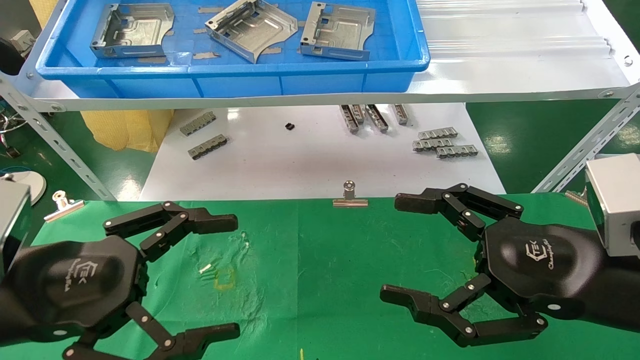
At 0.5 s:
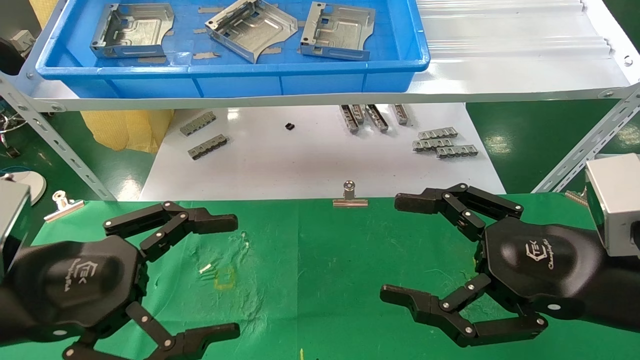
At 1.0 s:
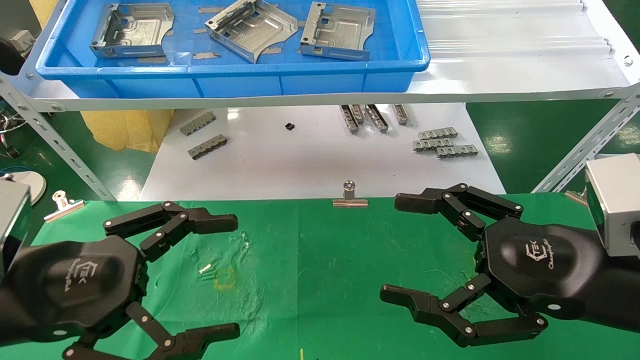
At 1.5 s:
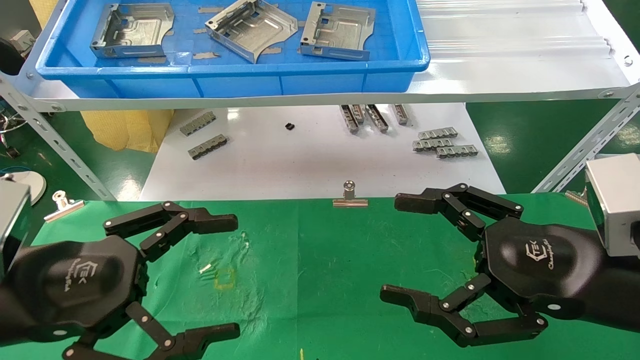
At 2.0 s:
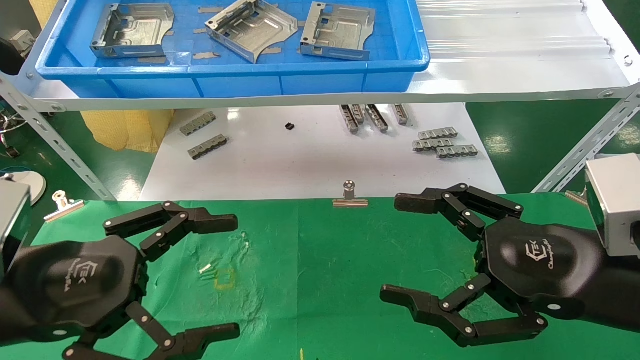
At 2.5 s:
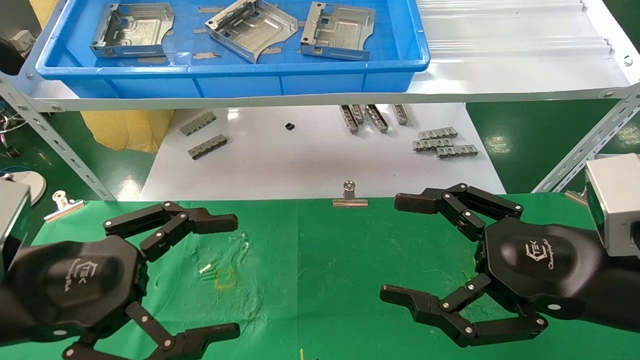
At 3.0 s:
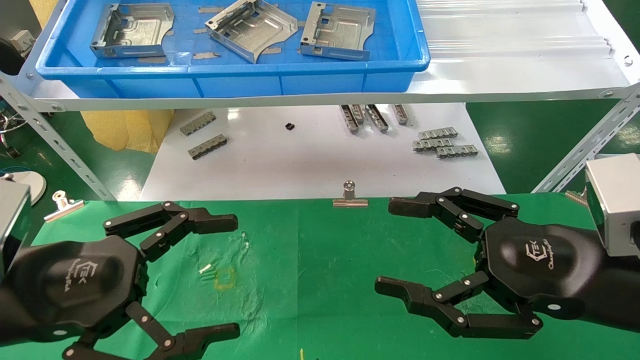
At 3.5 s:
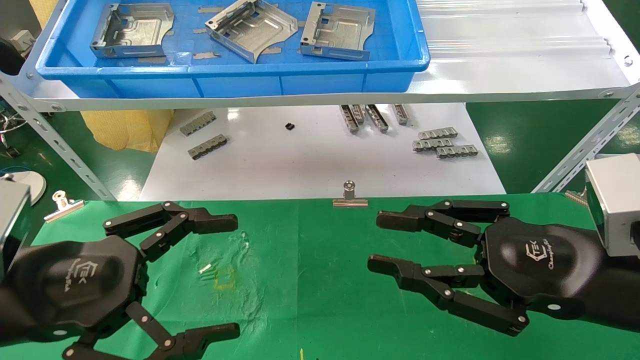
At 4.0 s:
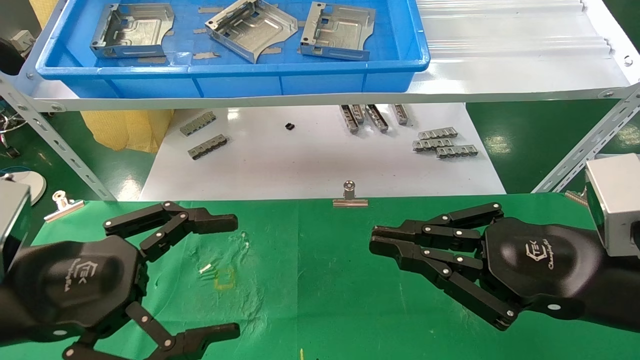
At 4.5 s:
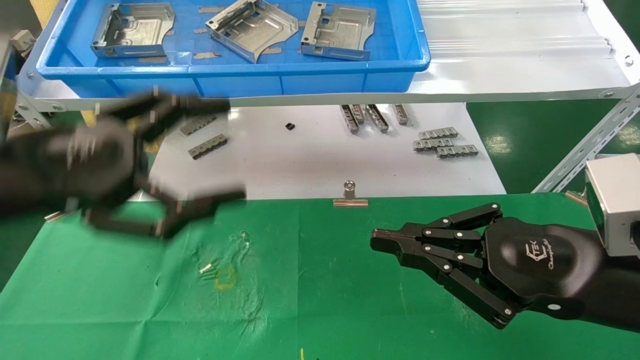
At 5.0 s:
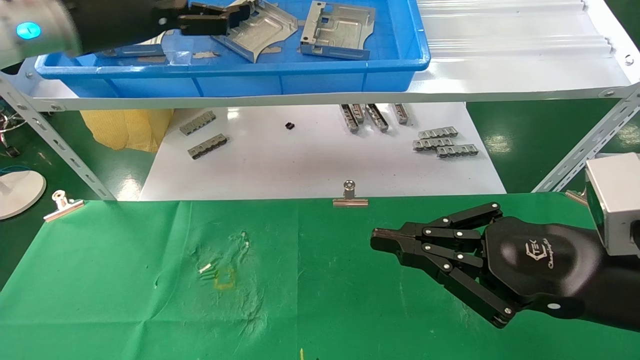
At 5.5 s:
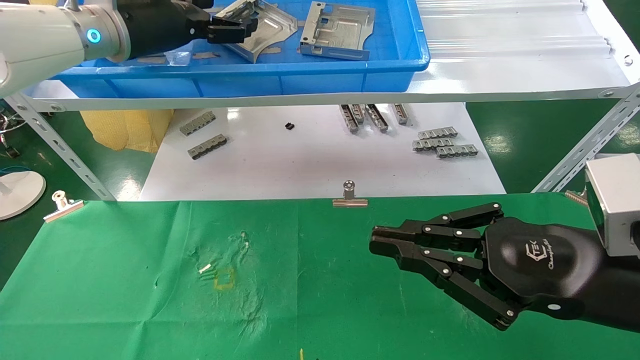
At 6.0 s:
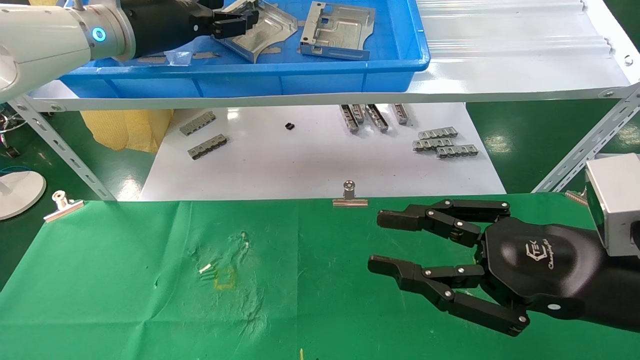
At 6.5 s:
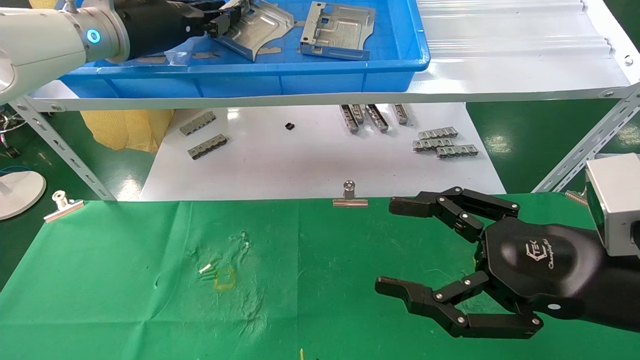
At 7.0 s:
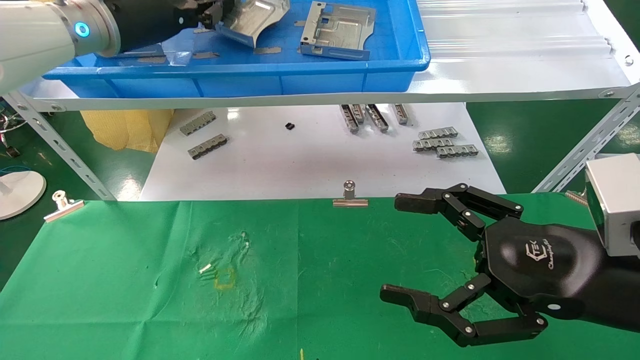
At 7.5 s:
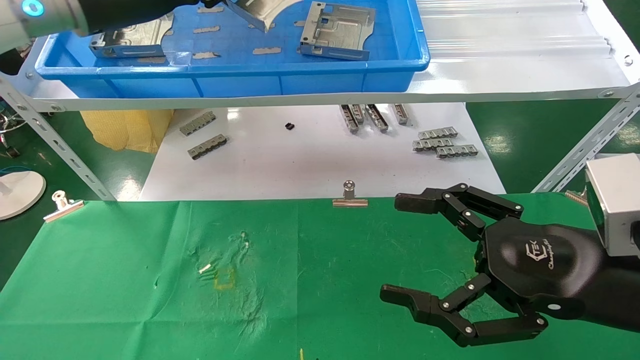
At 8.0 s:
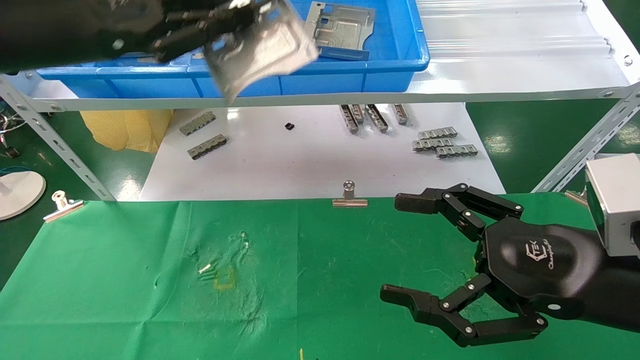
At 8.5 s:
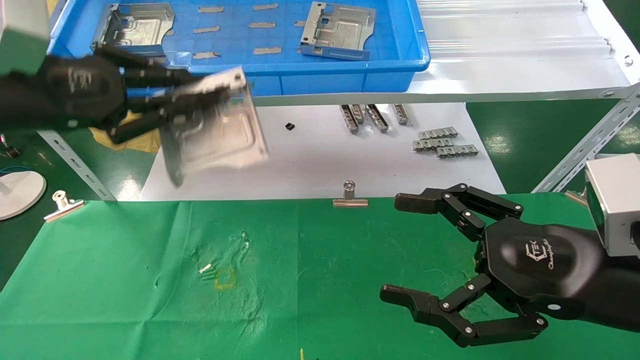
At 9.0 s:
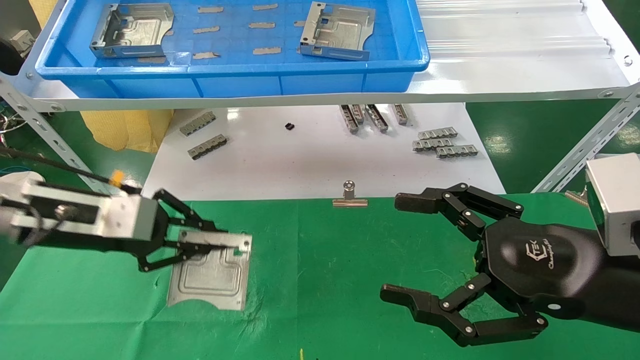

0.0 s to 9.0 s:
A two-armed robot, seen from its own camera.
Task of the whole recording: use the mechanical arm to pick up the parts and place them on the table.
Step, 4.5 to 6.5 s: Pick up the hard drive bracket from the feeding area.
0.0 to 2.0 s: The two grippers keep their place.
2.0 to 4.5 s: The left gripper heads upward and forward, covering roughly 10 cm. The right gripper closes its fingers.
4.5 to 7.0 s: The left gripper travels forward and upward by approximately 25 cm, and closes its fingers; the right gripper opens up.
7.0 to 9.0 s: The left gripper moves downward and backward, some 20 cm.

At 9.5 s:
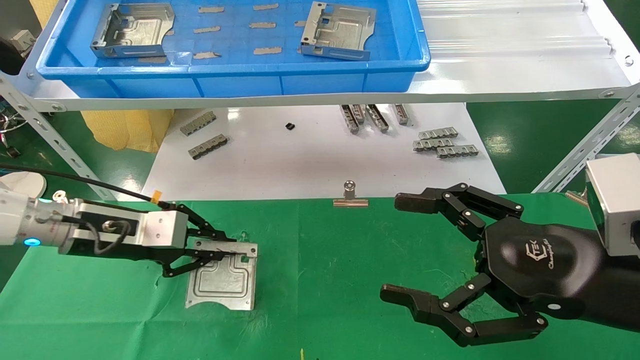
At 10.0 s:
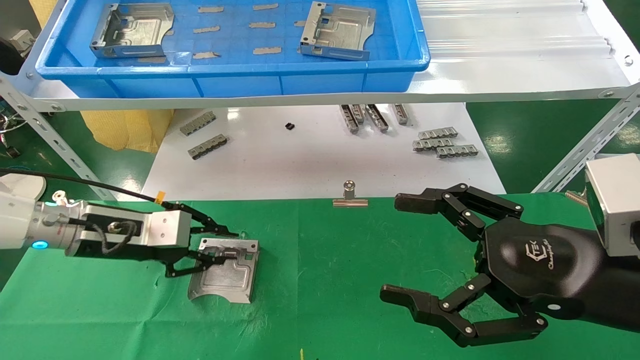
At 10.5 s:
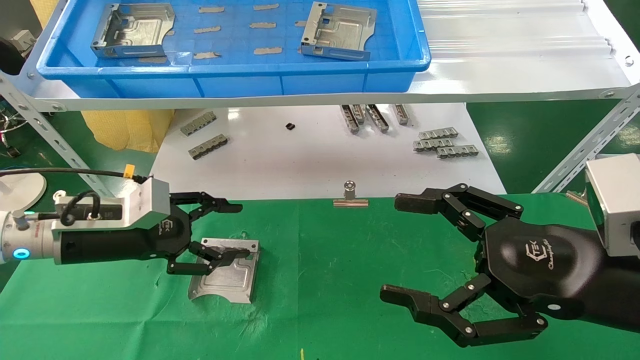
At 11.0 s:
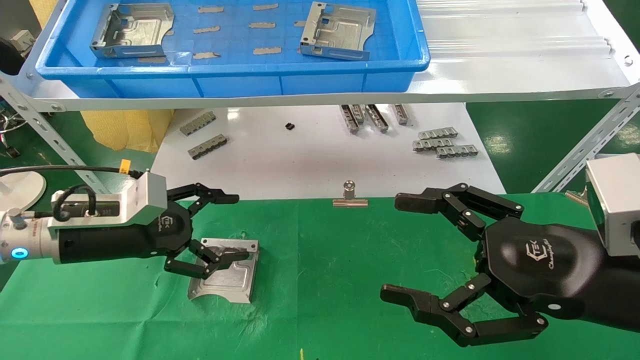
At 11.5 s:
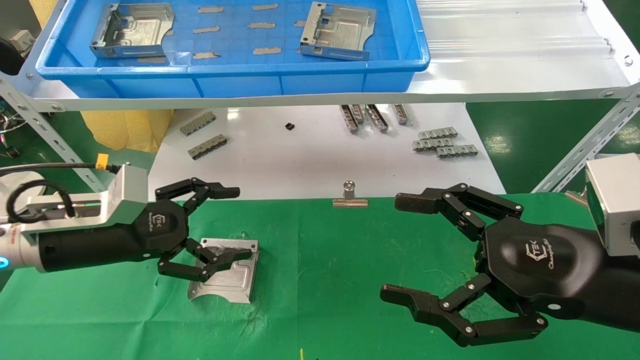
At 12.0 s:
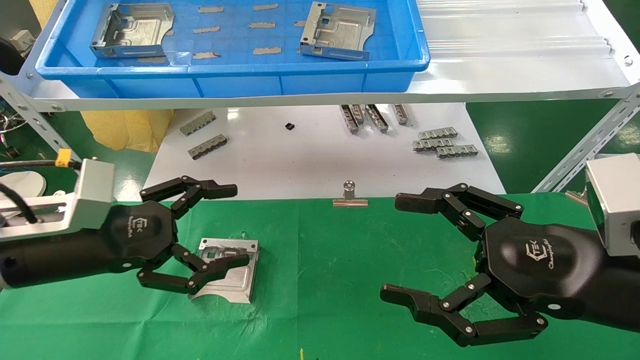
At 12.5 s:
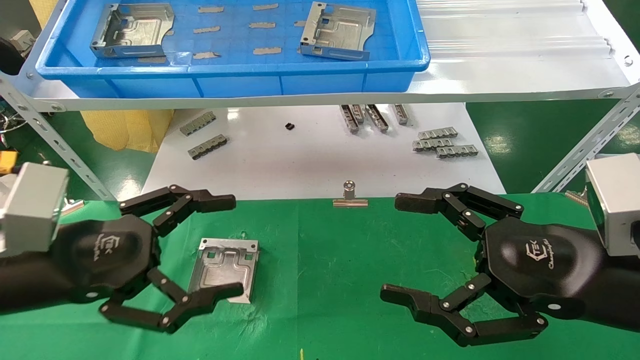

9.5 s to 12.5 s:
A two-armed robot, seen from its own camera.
Task of the whole recording: use the mechanical arm to pick up the parts and place them on the table.
9.5 to 11.0 s: The left gripper opens up.
11.0 to 12.5 s: The left gripper goes some 10 cm backward.

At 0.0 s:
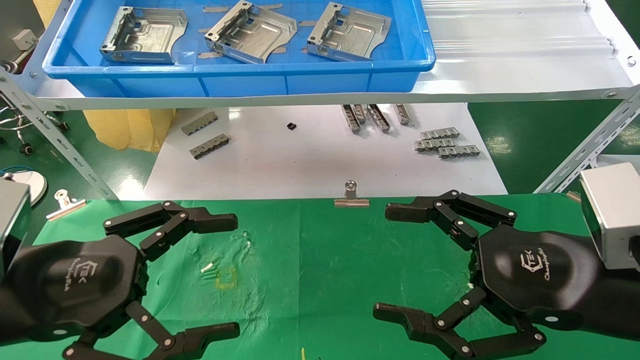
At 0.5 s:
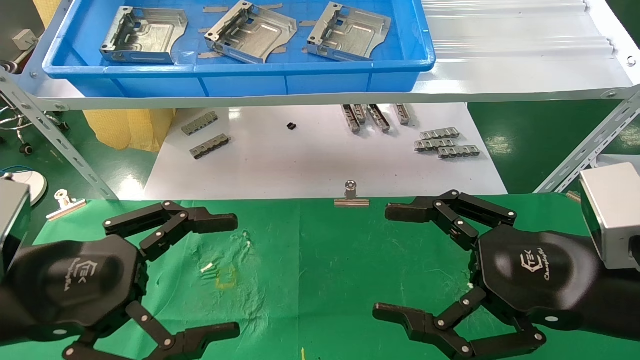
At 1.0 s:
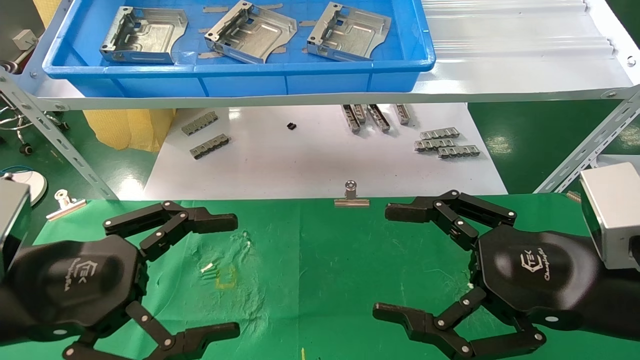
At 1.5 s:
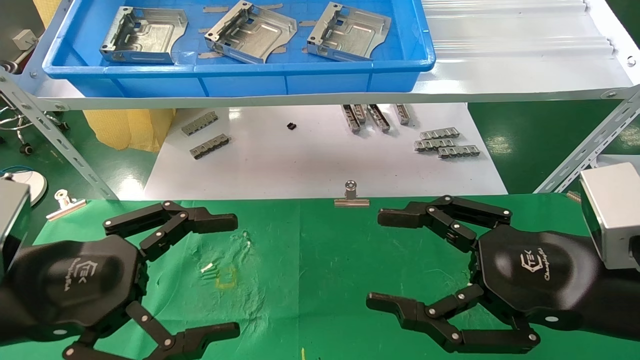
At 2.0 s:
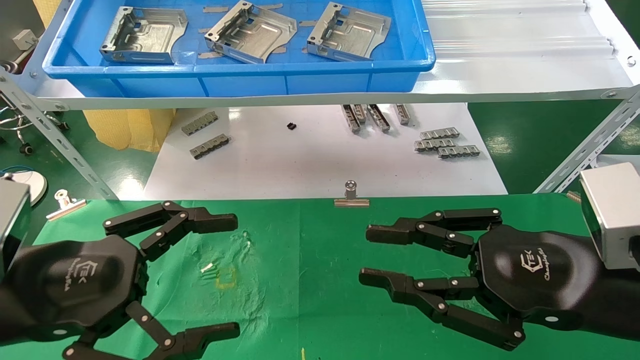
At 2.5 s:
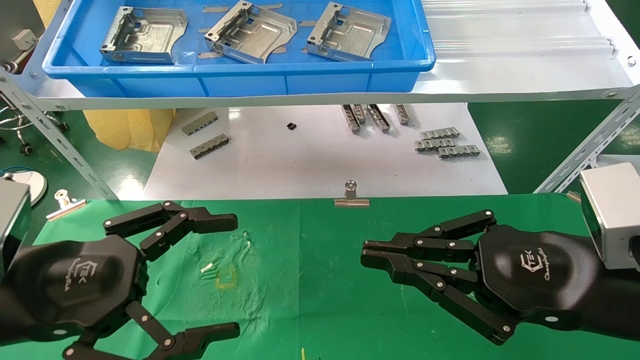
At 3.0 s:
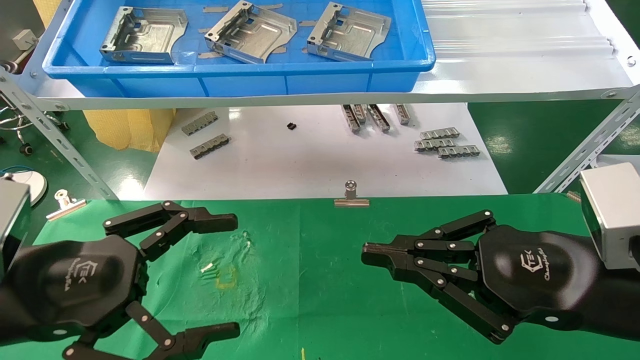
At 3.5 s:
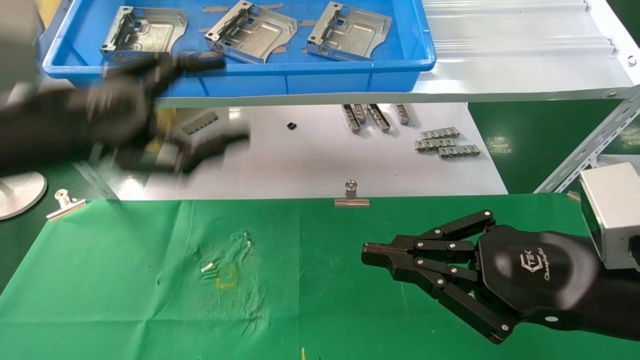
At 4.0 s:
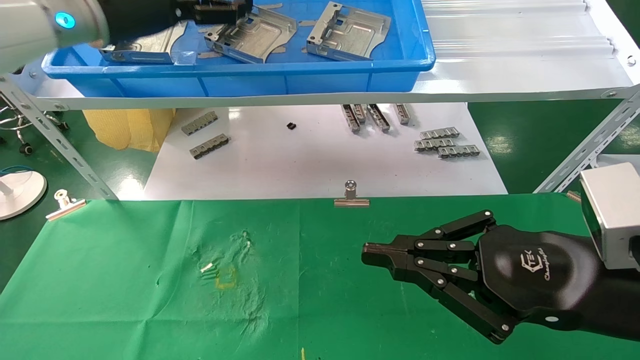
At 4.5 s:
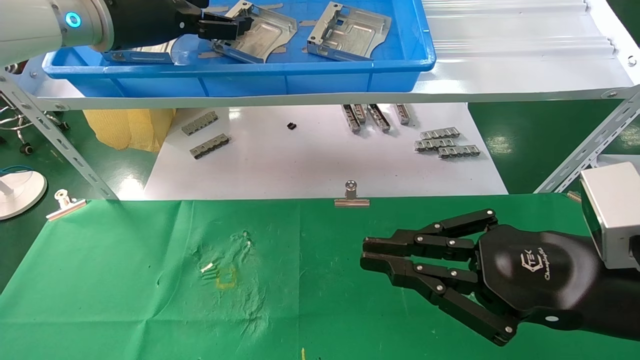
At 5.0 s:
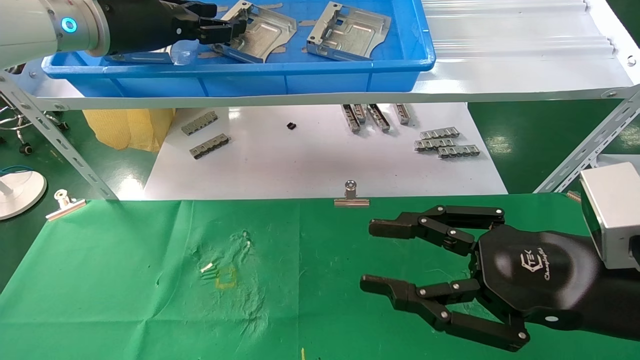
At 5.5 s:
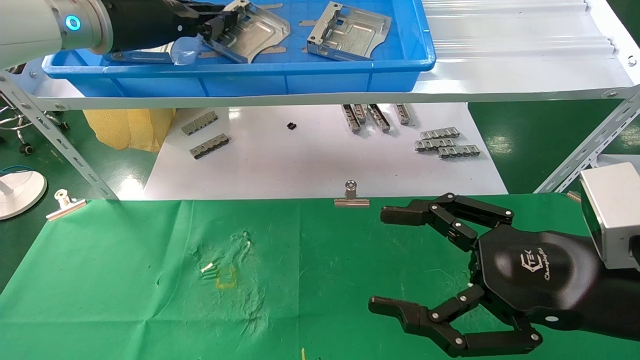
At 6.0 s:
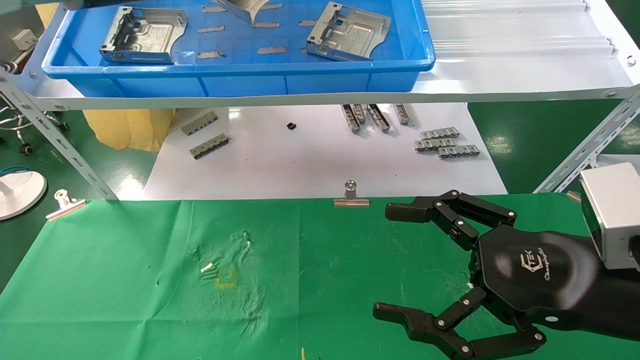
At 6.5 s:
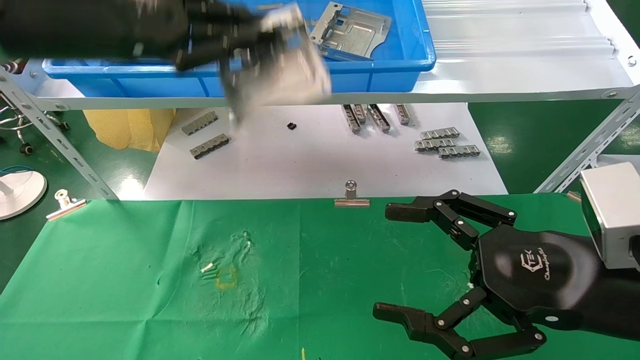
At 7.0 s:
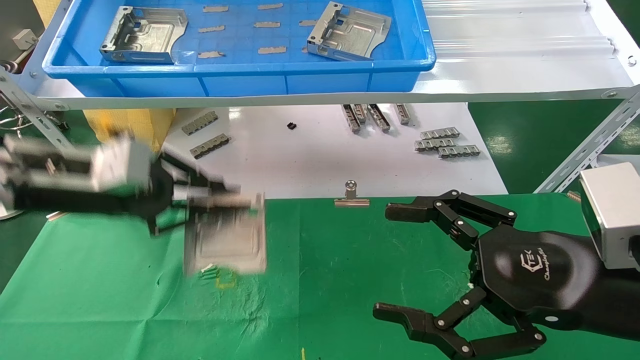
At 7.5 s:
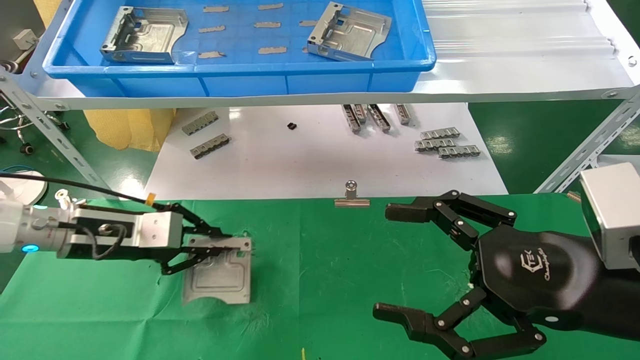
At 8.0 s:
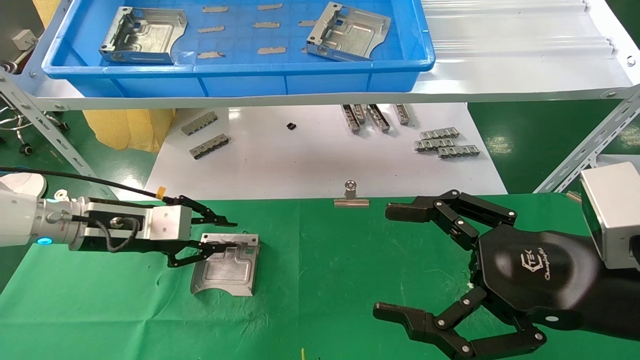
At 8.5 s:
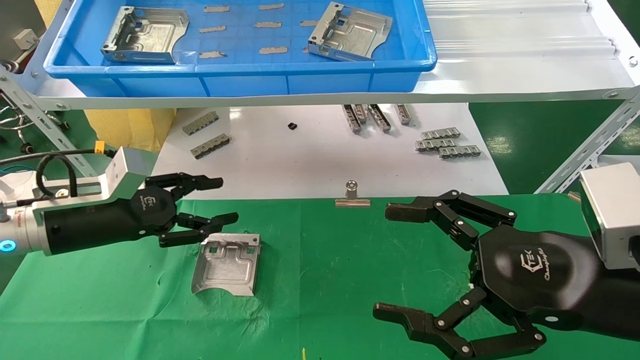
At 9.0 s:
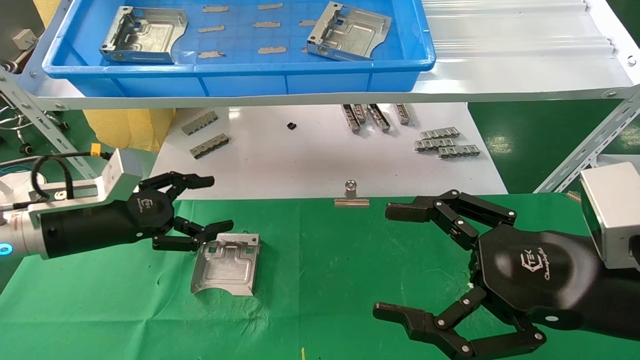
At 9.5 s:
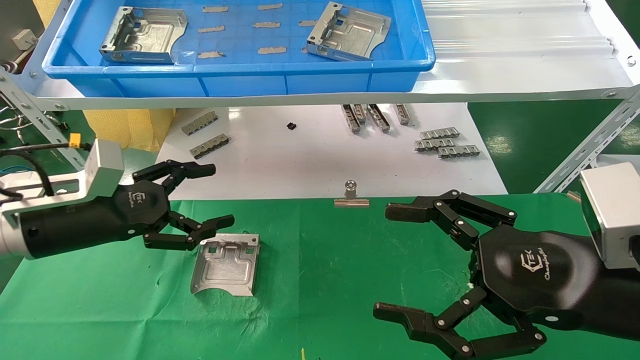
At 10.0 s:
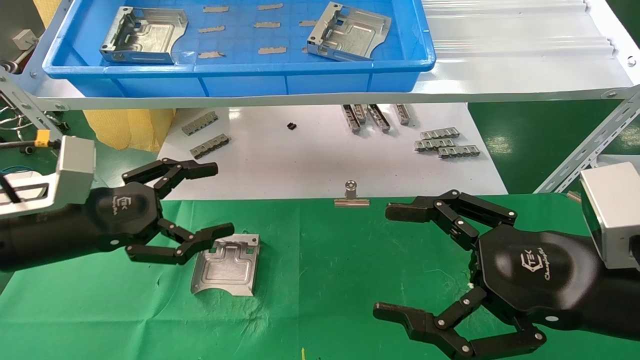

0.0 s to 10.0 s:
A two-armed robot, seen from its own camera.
Task of the whole recording: use the mechanical arm to pick up the parts and place them on the table.
Step, 1.5 to 5.5 s: Pick up the hard drive bracket from the feeding area.
Step, 6.0 to 8.5 s: Place the hard drive bracket into the box.
0.0 to 2.0 s: The right gripper closes up.
2.0 to 4.0 s: The right gripper closes; the left gripper is displaced upward and forward by approximately 30 cm.
4.0 to 6.0 s: The right gripper opens. Meanwhile the left gripper closes.
6.0 to 8.0 s: The left gripper shifts some 30 cm downward.
8.0 to 10.0 s: The left gripper goes roughly 10 cm backward, and opens up.
